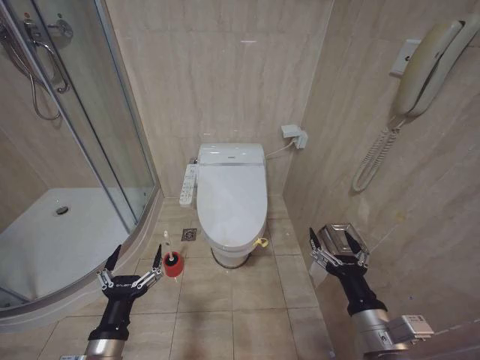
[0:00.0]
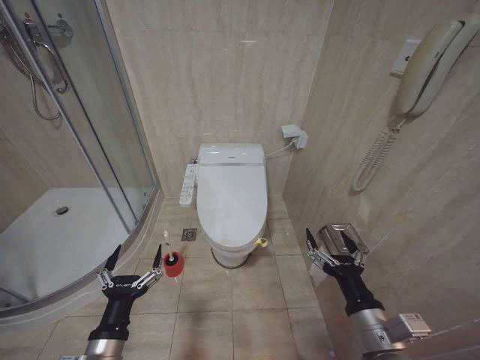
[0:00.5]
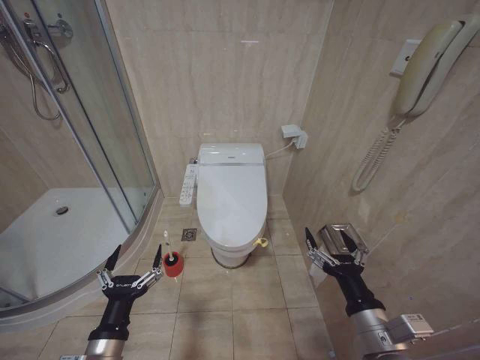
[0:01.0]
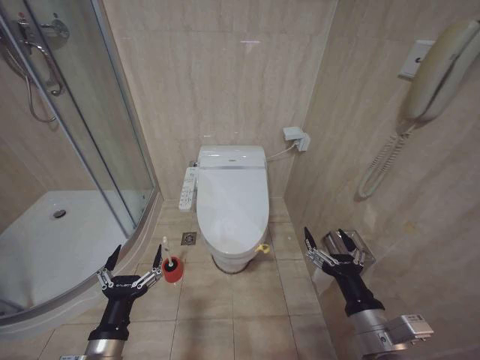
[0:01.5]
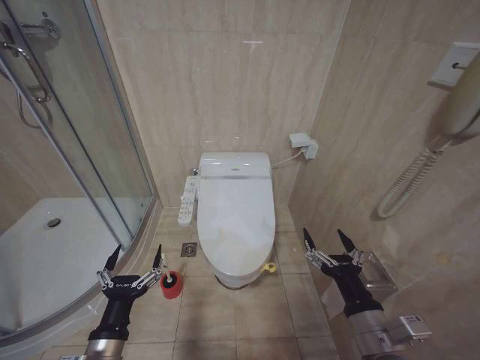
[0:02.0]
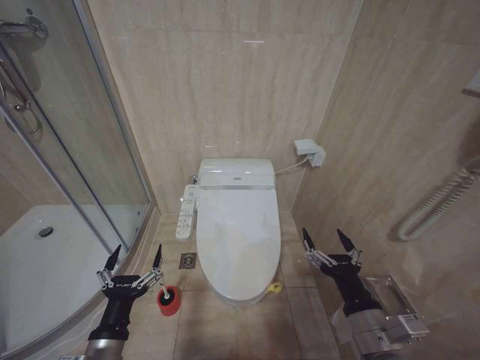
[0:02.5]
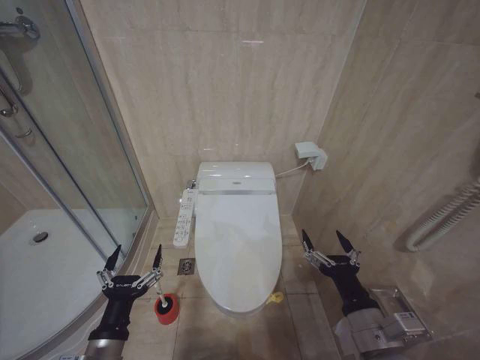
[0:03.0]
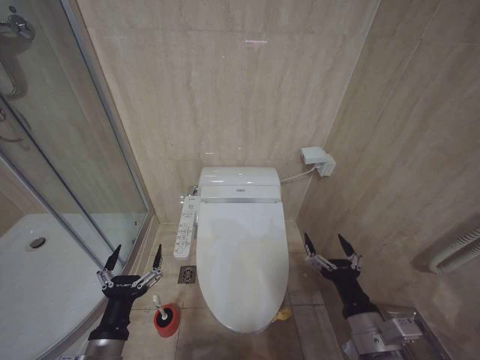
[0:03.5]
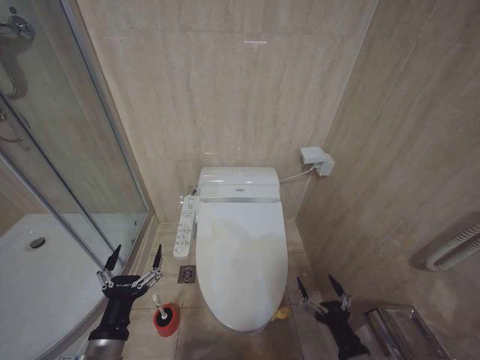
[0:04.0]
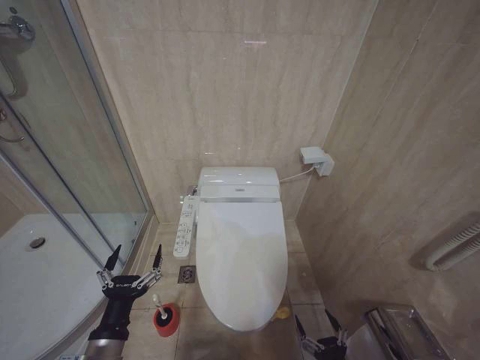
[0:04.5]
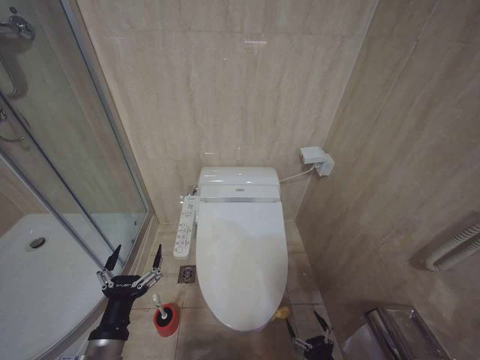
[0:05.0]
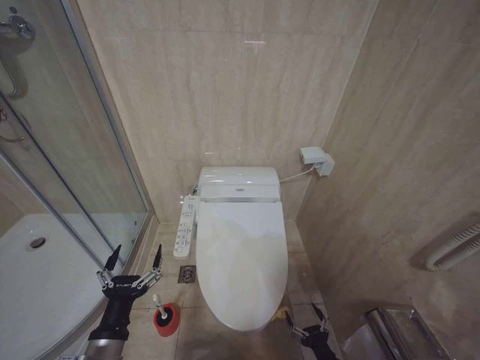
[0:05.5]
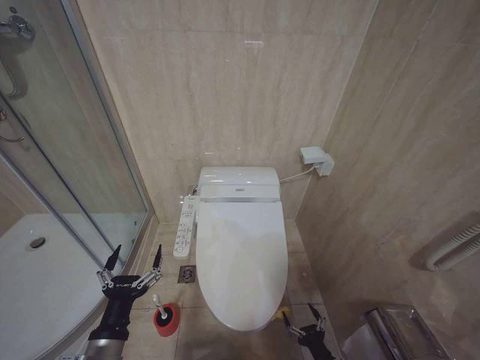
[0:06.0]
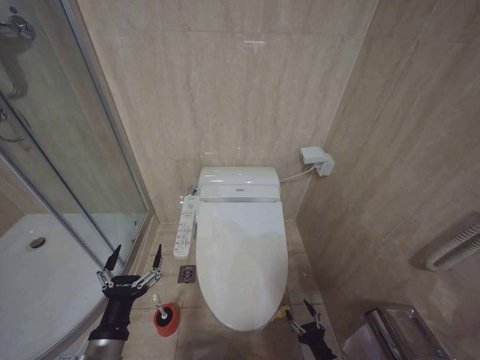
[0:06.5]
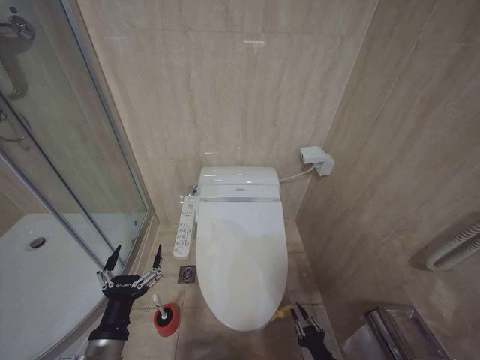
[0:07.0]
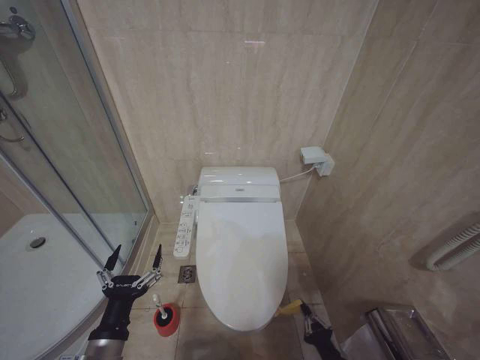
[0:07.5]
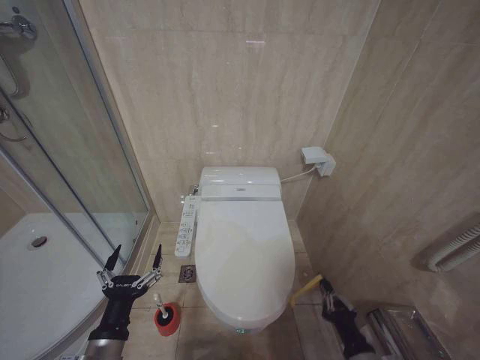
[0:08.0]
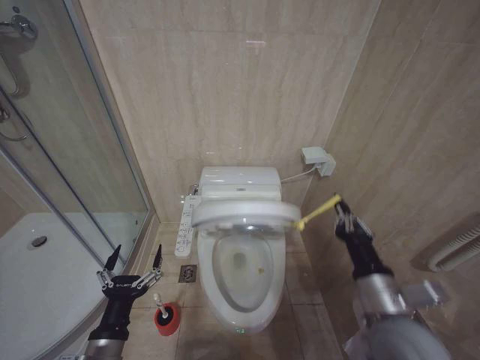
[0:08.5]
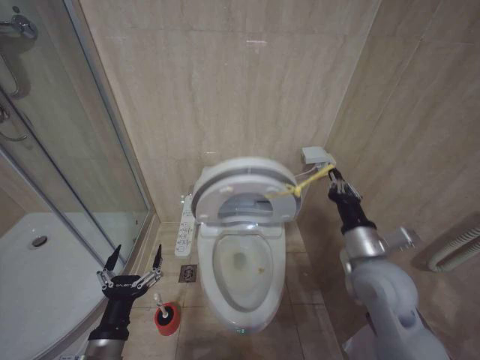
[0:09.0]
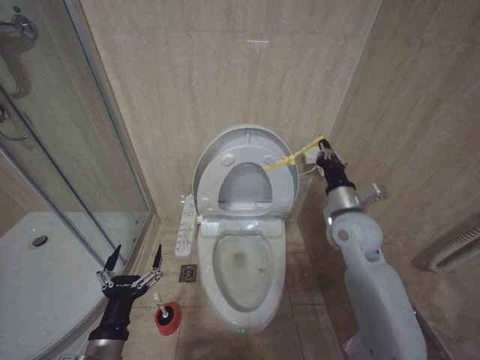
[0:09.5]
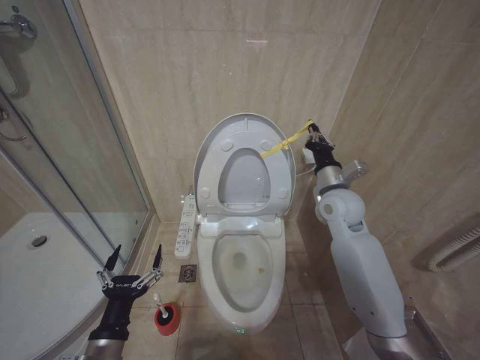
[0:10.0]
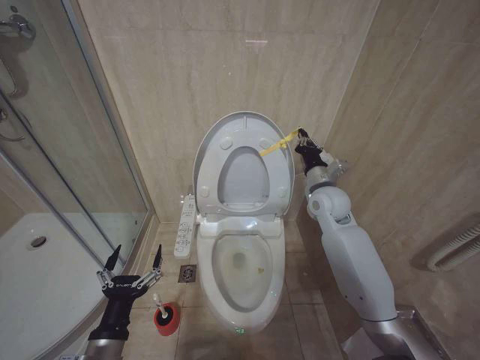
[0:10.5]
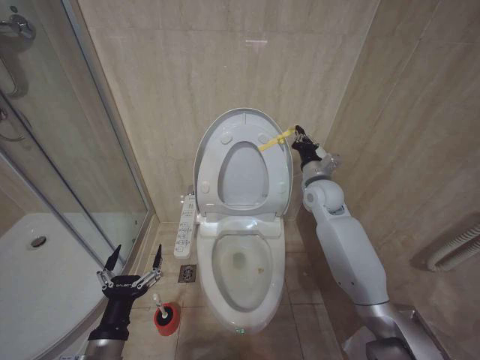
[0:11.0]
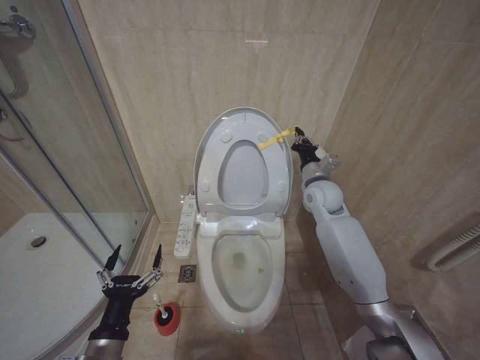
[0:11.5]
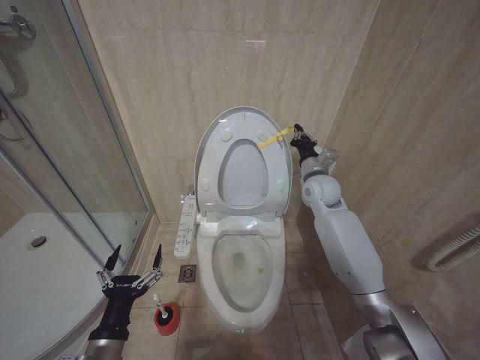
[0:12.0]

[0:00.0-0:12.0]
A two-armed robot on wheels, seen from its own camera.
Task of the whole recording: Open the toilet lid, clean the toilet bowl with a toilet brush, close the toilet lid, and flush.
0:02.0 to 0:04.0: The right gripper goes some 10 cm downward.
0:04.0 to 0:06.0: The right gripper goes roughly 15 cm downward.
0:06.0 to 0:08.0: The right gripper shifts roughly 10 cm upward, and closes.
0:08.0 to 0:10.0: The right gripper shifts about 40 cm forward and upward.
0:10.0 to 0:12.0: The right gripper moves forward, approximately 10 cm.

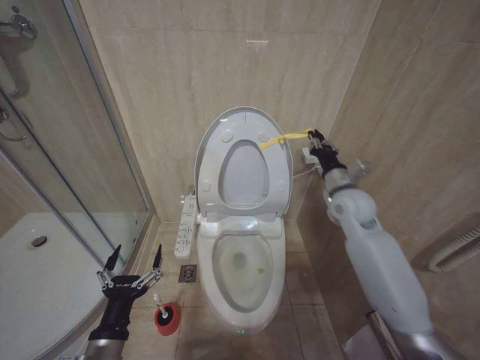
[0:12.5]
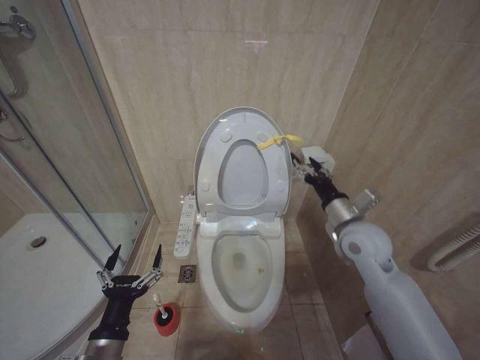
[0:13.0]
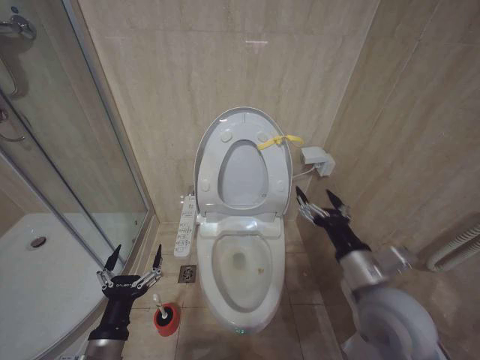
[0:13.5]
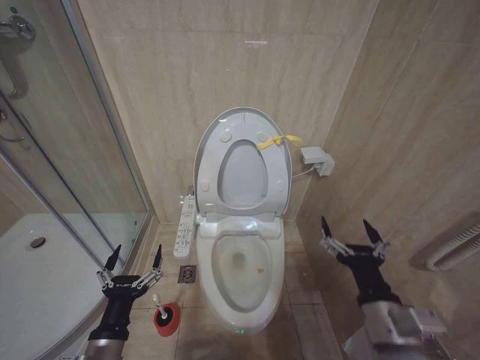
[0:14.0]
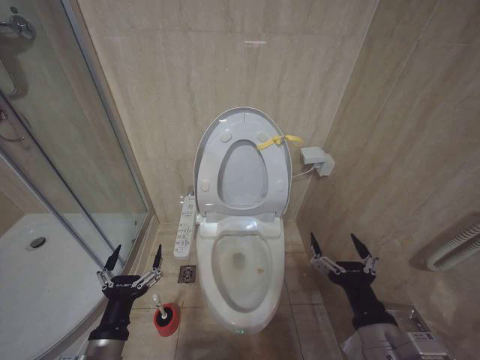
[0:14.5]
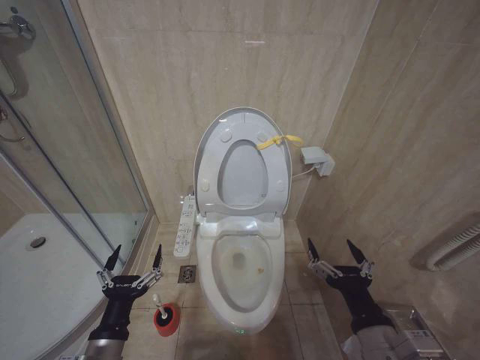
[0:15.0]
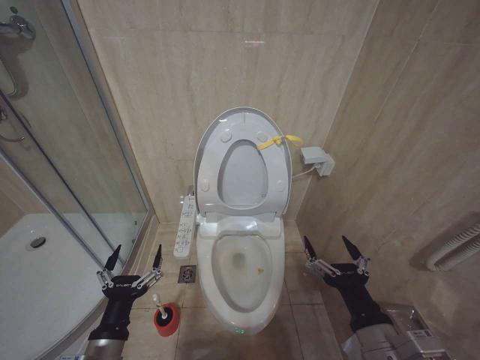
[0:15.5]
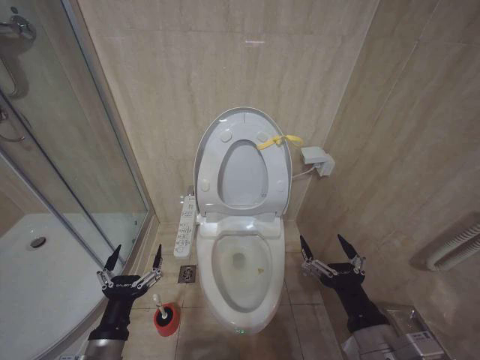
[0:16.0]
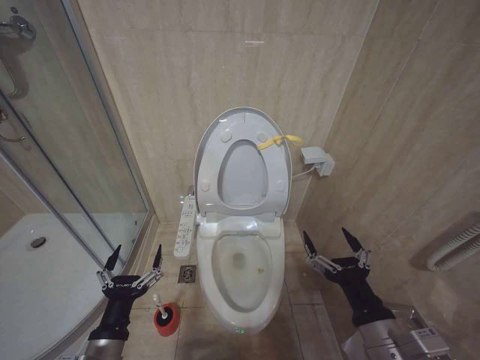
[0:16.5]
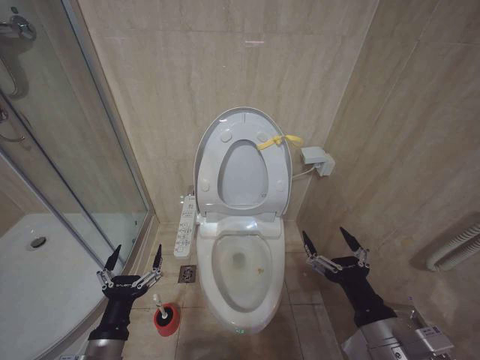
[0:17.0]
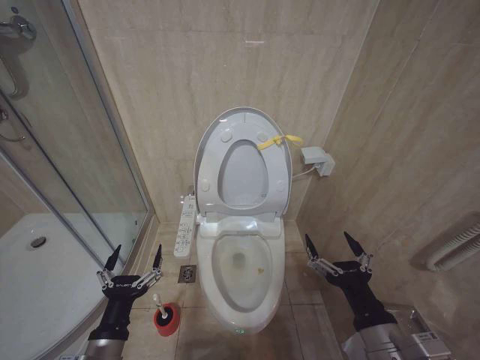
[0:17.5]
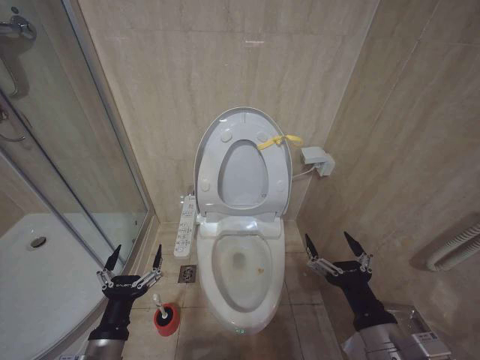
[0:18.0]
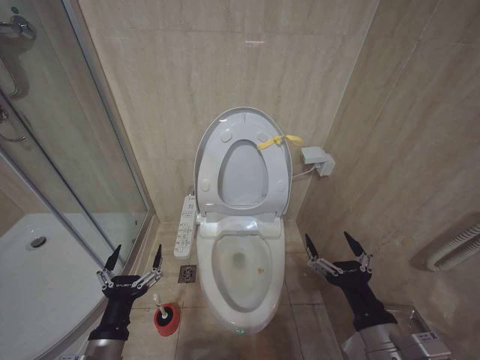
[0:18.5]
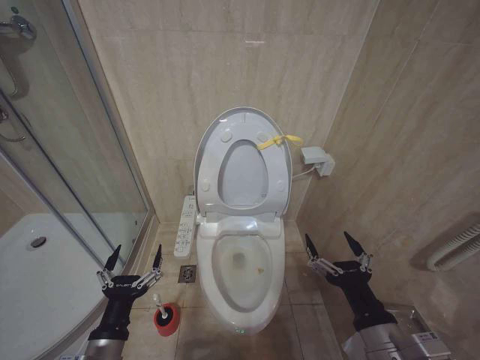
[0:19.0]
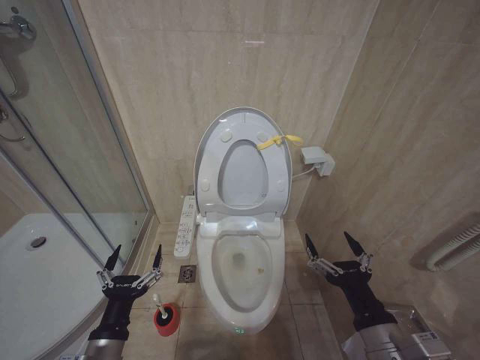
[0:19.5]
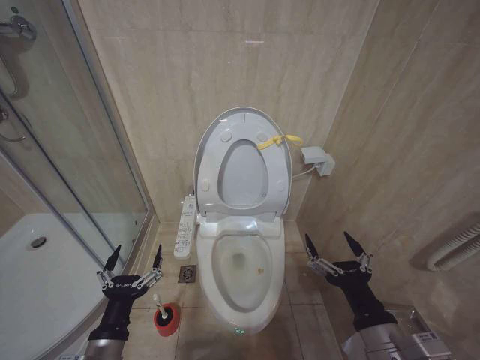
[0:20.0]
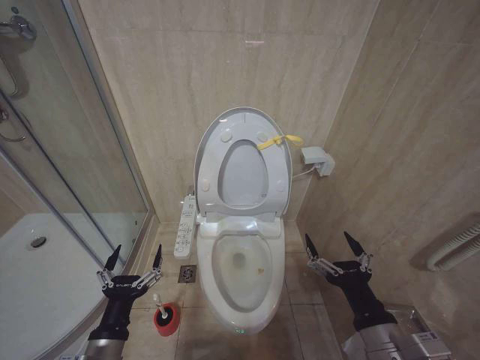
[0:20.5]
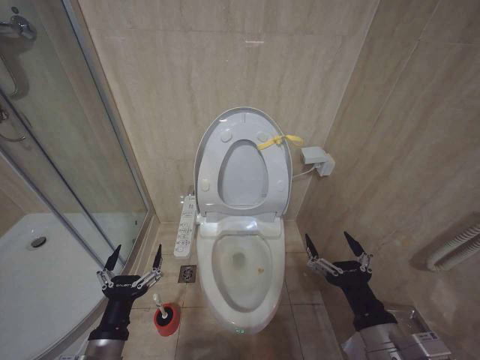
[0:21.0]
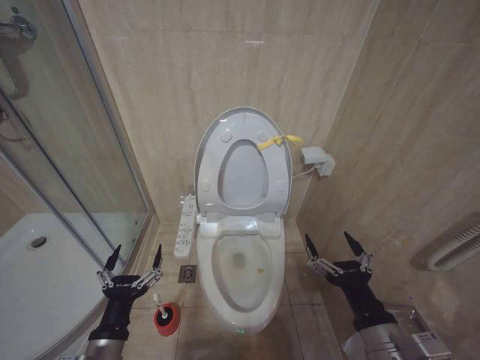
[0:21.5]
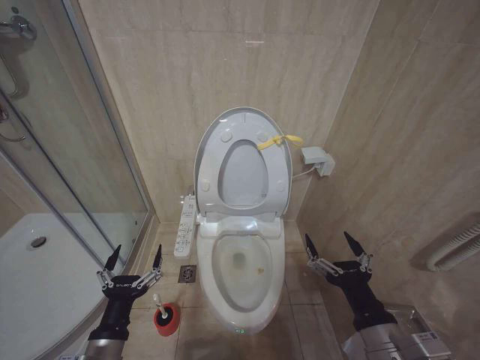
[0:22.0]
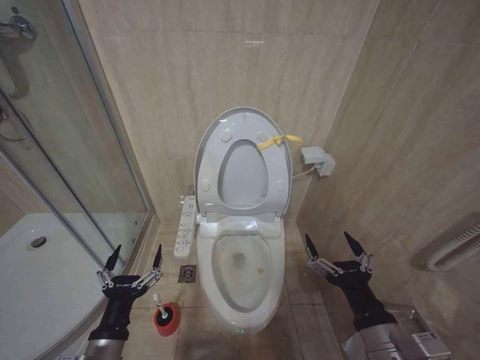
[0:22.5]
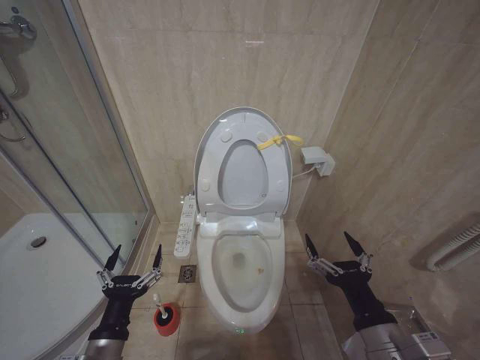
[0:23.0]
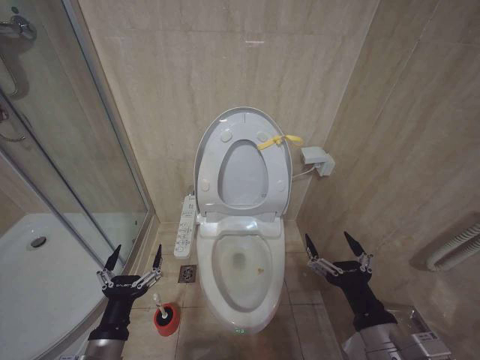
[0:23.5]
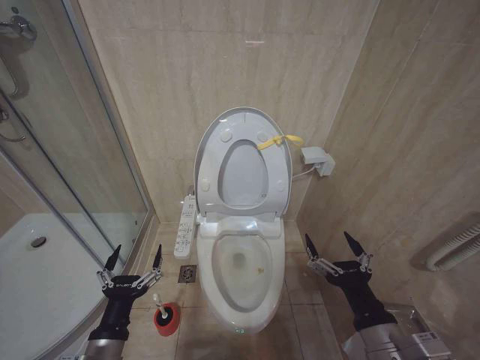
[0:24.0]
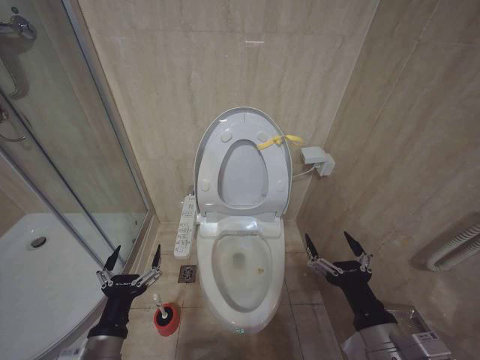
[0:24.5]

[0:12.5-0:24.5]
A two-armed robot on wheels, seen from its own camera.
Task of the whole recording: Open the toilet lid, clean the toilet bowl with a toilet brush, close the toilet lid, and flush.
0:12.5 to 0:14.5: The right gripper shifts approximately 35 cm backward, and opens.
0:18.5 to 0:24.5: Neither gripper changes place.

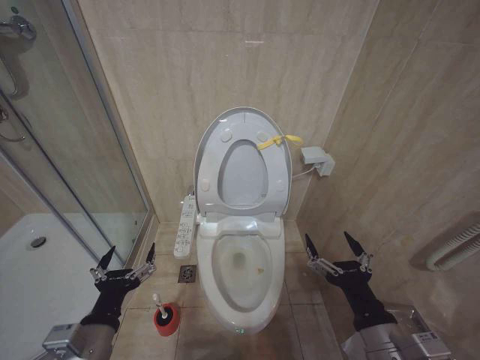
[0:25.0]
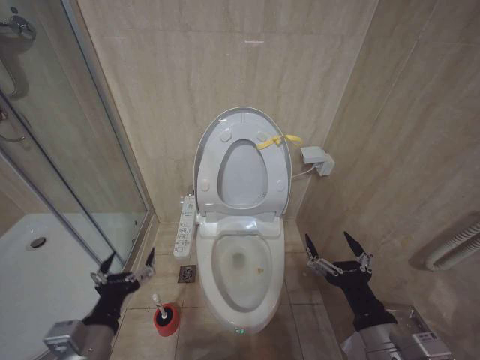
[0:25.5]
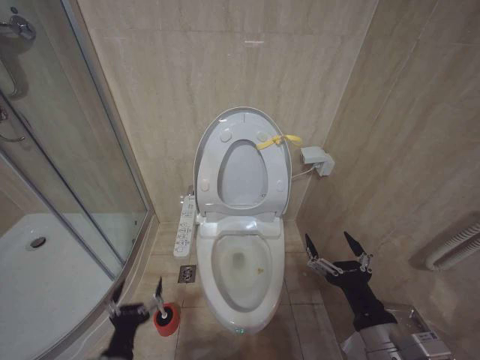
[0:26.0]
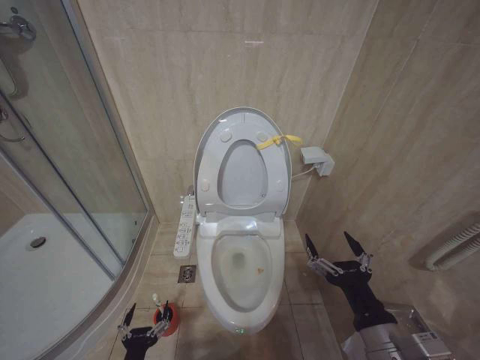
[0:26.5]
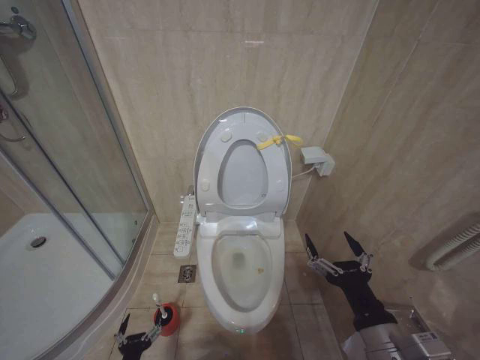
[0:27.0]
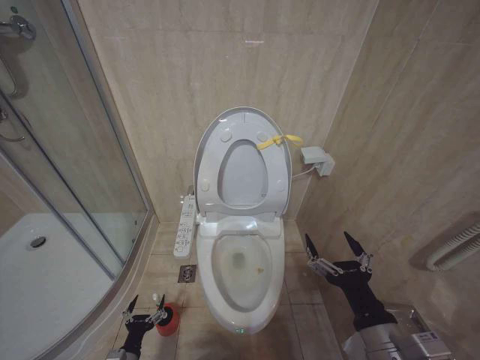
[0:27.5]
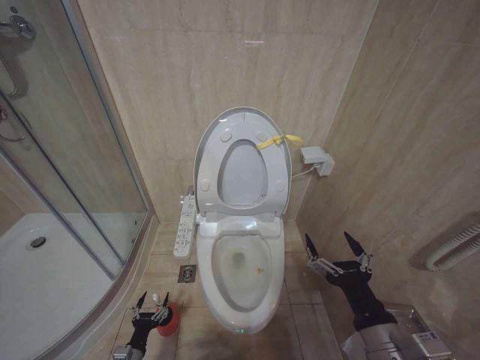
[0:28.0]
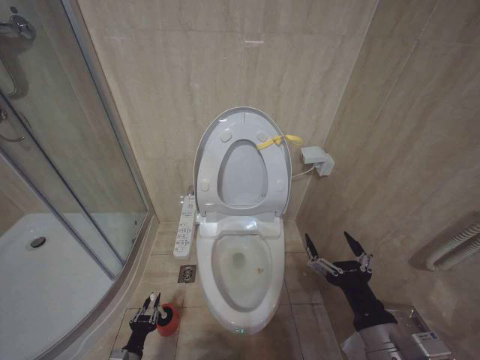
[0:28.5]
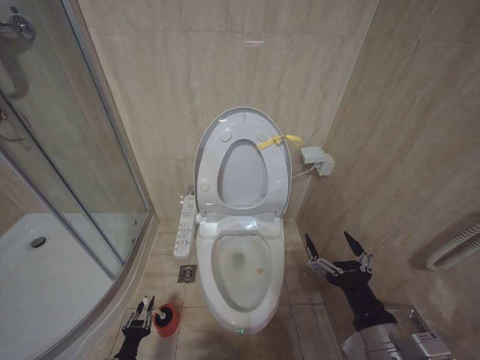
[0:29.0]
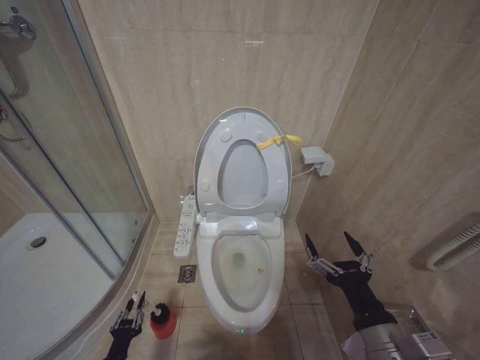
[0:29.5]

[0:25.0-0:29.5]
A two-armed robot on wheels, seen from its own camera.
Task of the whole recording: Open the toilet lid, clean the toilet bowl with a toilet brush, close the toilet lid, and flush.
0:25.0 to 0:27.0: The left gripper moves downward, roughly 25 cm.
0:27.0 to 0:29.5: The left gripper goes roughly 5 cm to the left, and closes.
